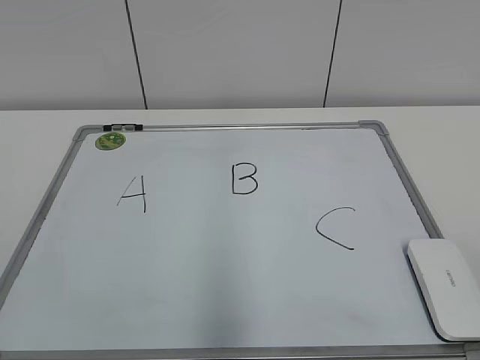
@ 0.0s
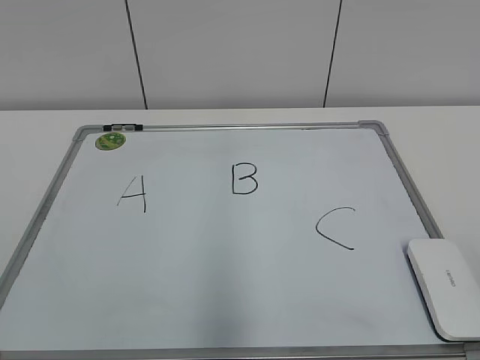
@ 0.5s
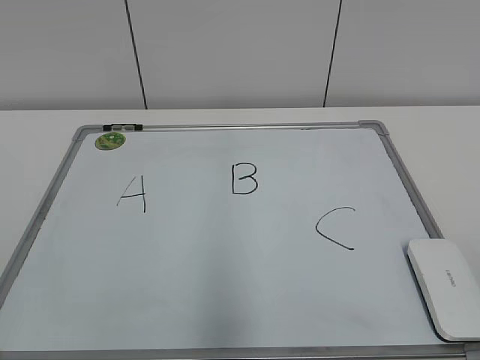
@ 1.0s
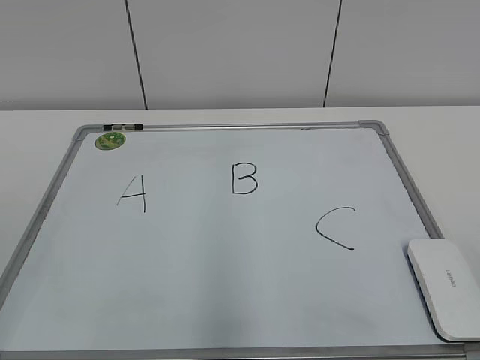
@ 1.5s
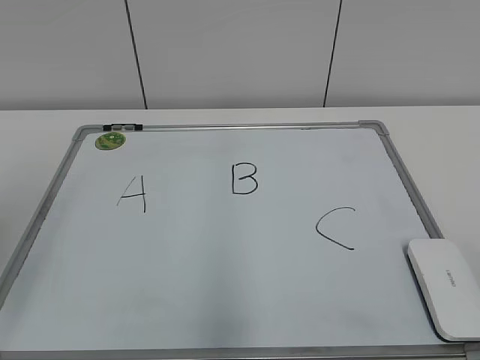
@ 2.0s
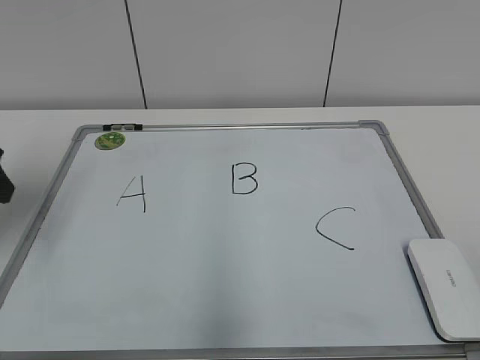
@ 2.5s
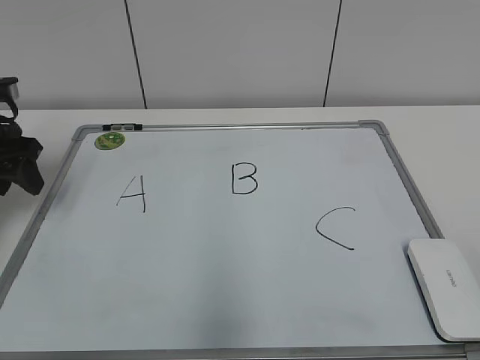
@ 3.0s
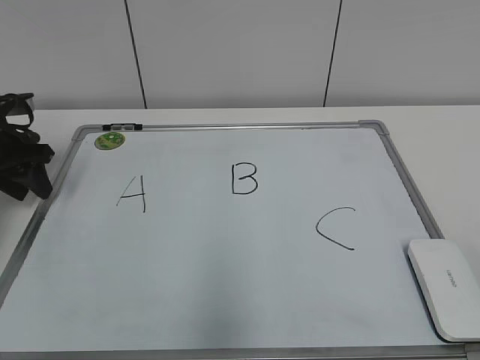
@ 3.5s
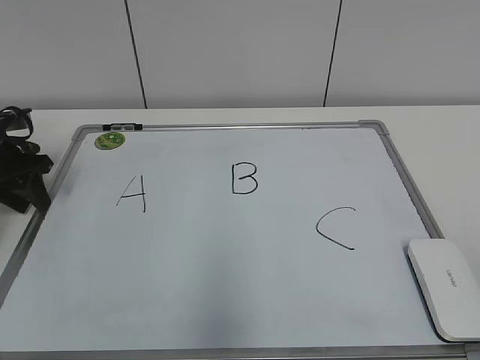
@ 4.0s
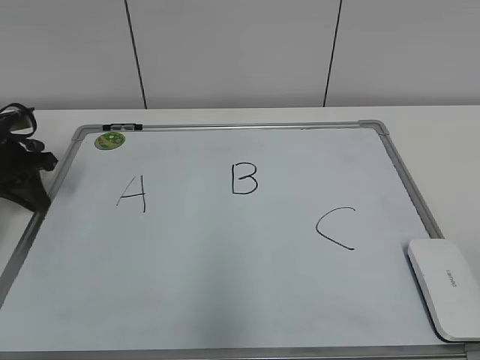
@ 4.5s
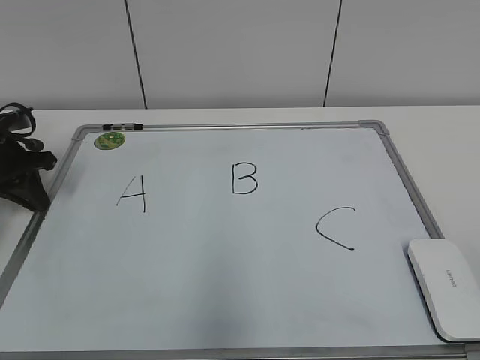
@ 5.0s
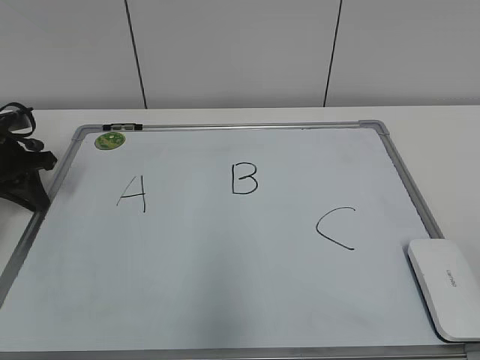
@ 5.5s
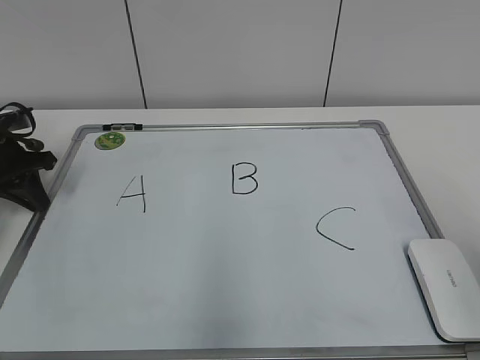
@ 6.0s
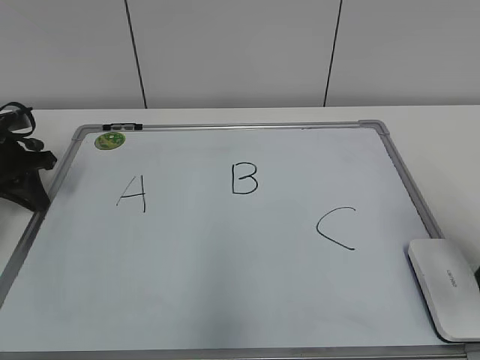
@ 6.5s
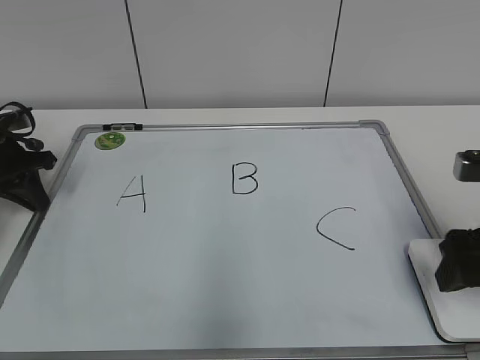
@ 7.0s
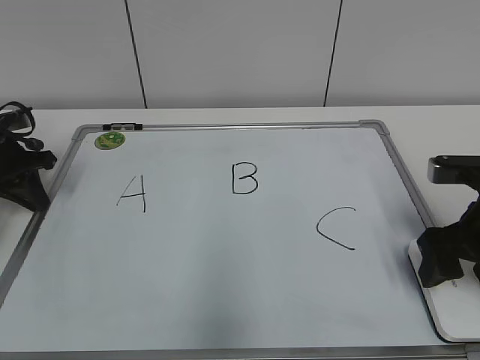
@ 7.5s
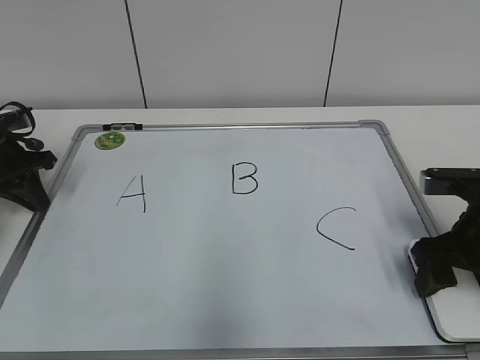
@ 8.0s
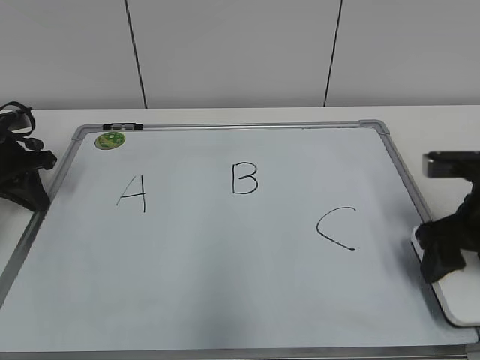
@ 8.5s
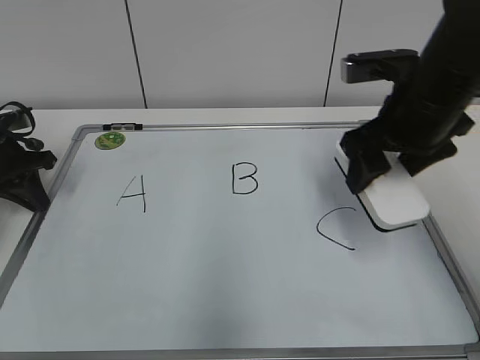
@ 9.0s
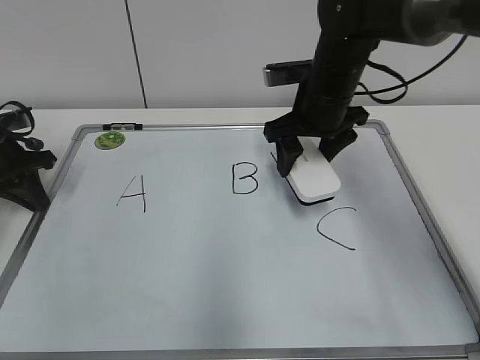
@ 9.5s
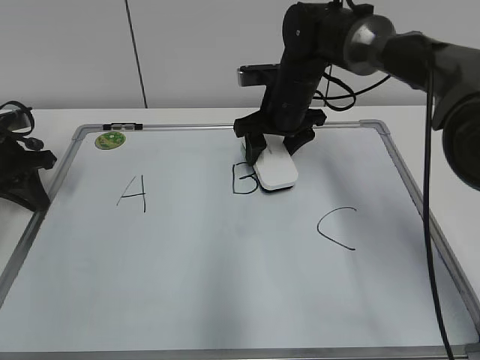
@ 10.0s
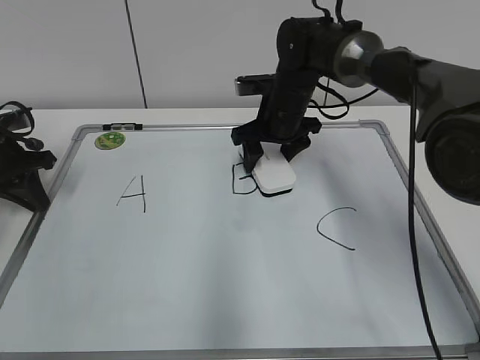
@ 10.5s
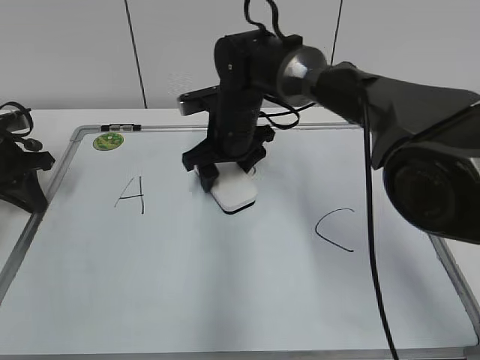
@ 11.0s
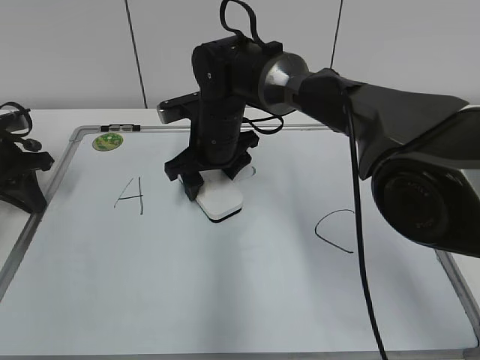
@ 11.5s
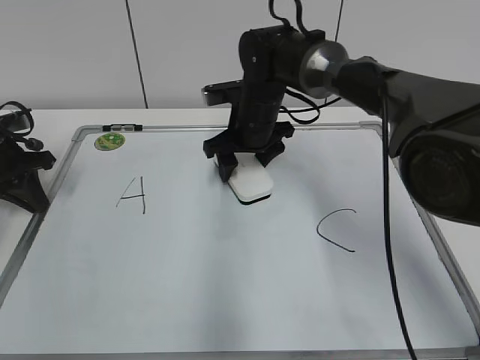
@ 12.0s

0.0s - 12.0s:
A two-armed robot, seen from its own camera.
Task of the whole recording: pick up the eraser on the blackboard and erase the letter "B".
Step, 0.0s - 4.5s: Hold the drawing board steady with your left hand.
Step, 5.5s - 8.5s: Grab the eraser with your right hand.
2.0s - 4.0s: The left gripper is displaced forward and downward by approximately 30 cm, and closes its fingers.
4.0s - 6.0s: The left gripper closes its fingers.
6.0s - 8.0s: The right gripper moves forward and downward, about 25 cm.
8.0s - 10.0s: The right gripper heads forward and to the left, covering approximately 30 cm.

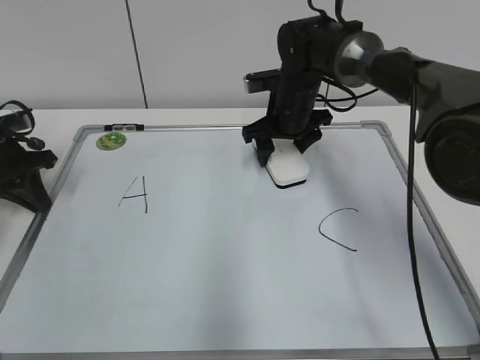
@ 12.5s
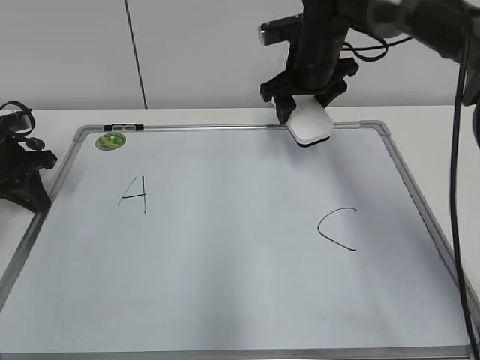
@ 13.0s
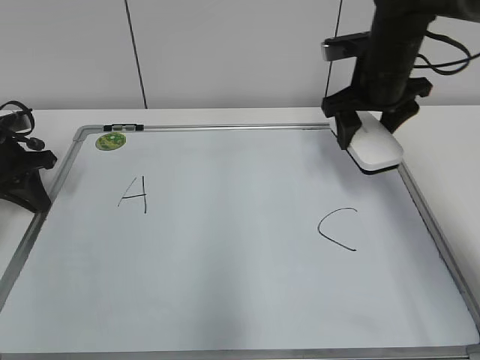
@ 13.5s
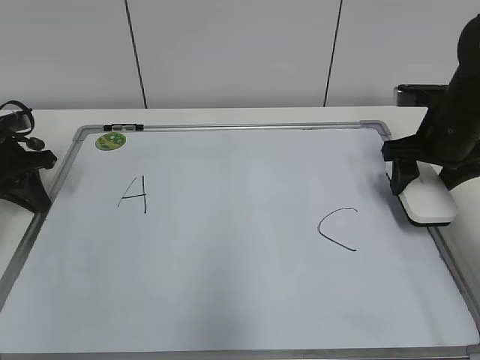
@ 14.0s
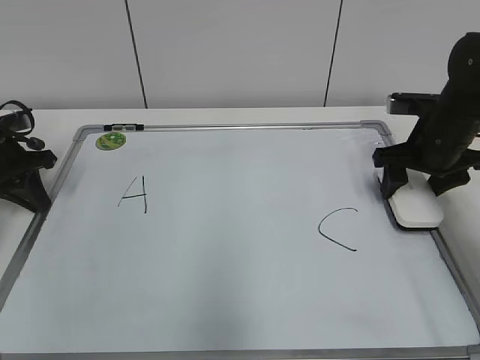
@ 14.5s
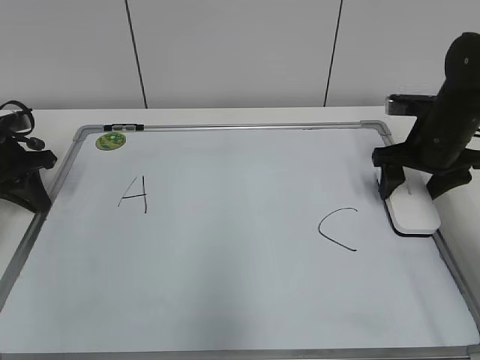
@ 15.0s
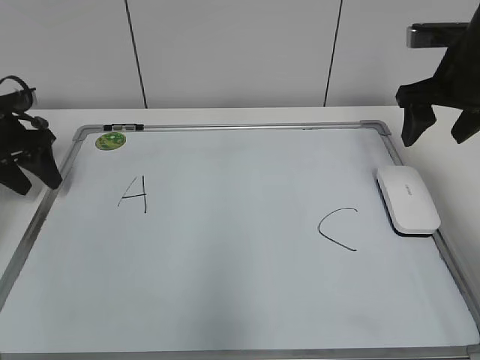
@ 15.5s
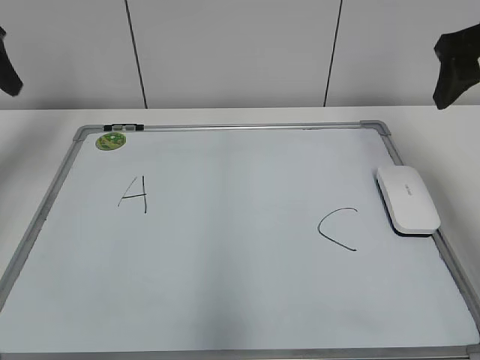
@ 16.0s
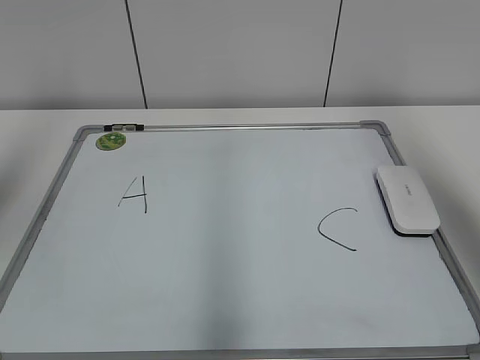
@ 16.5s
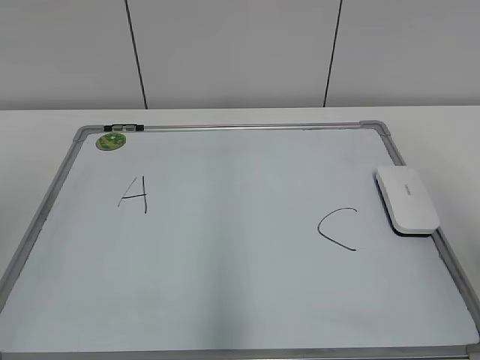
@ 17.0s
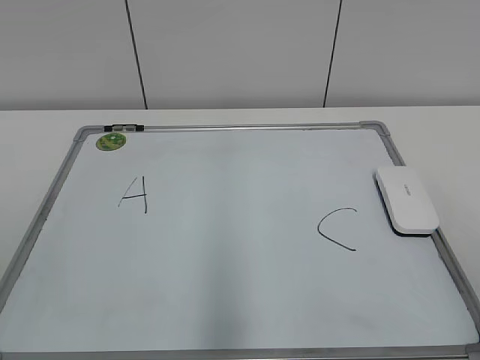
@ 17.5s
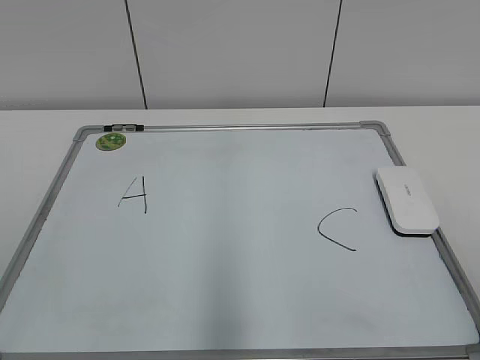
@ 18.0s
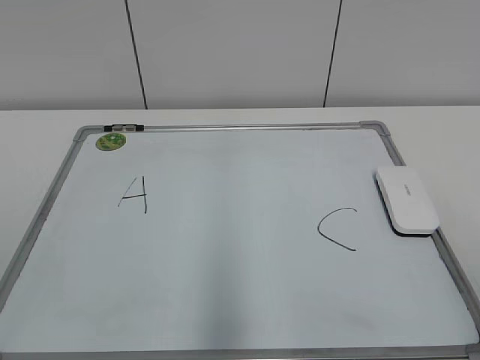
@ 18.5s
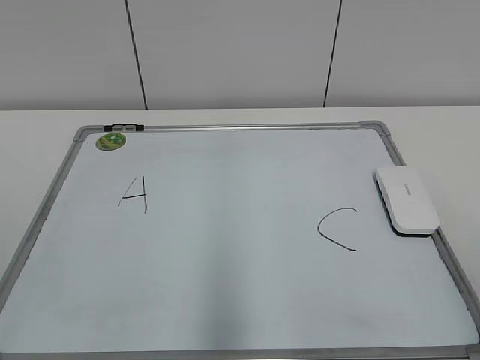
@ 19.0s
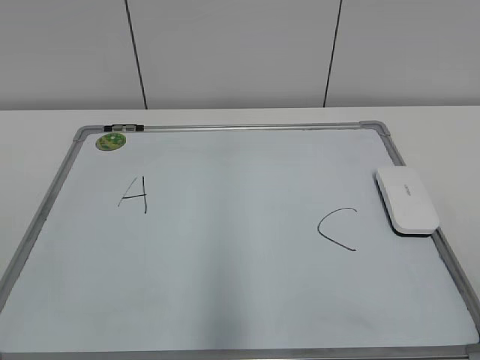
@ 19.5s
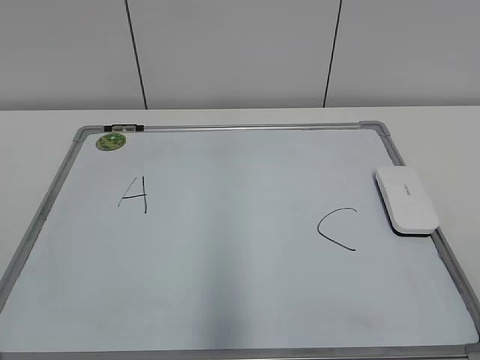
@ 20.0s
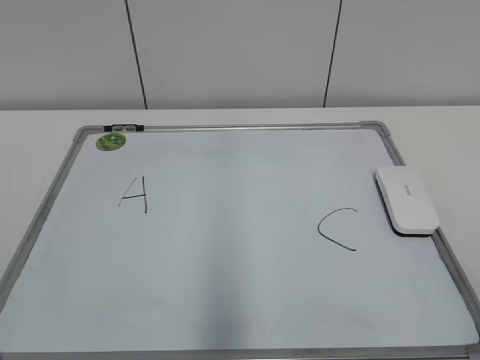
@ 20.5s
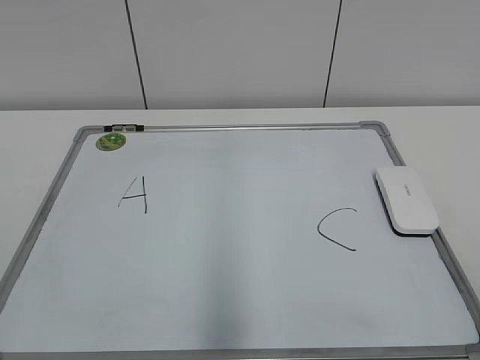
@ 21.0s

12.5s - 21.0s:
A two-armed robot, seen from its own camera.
Task of the whole recording: pick up the eraser on the blackboard and erase the letter "B".
Step, 13.0s - 15.0s: Put down the eraser with your right hand.
12.5s - 14.5s: The right gripper shifts roughly 20 cm to the right and backward.
14.5s - 16.5s: Both grippers move upward and backward, approximately 30 cm. The left gripper opens up.
16.5s - 19.0s: Both grippers travel together backward and downward, about 25 cm.

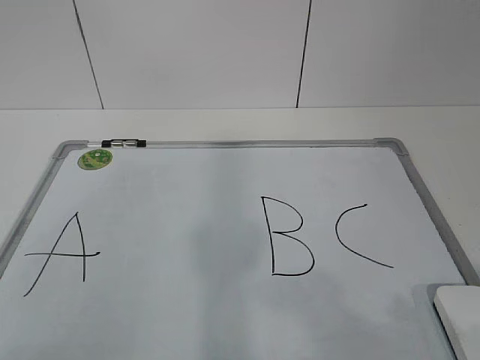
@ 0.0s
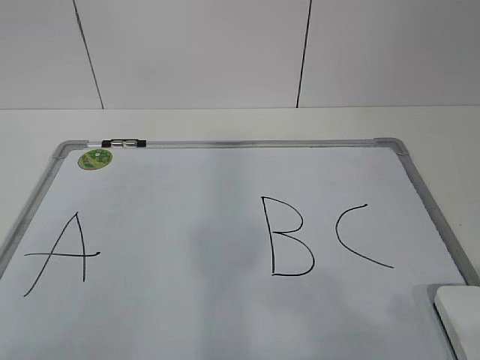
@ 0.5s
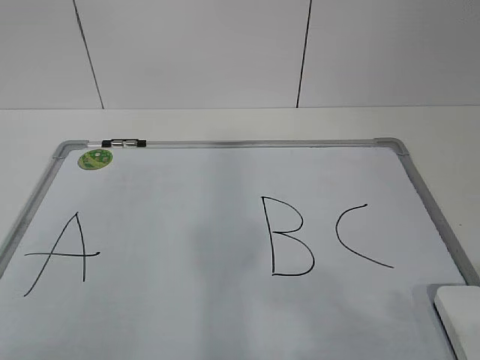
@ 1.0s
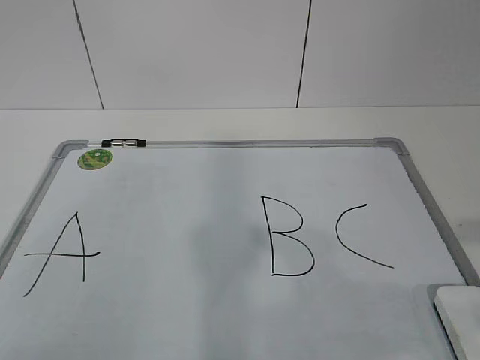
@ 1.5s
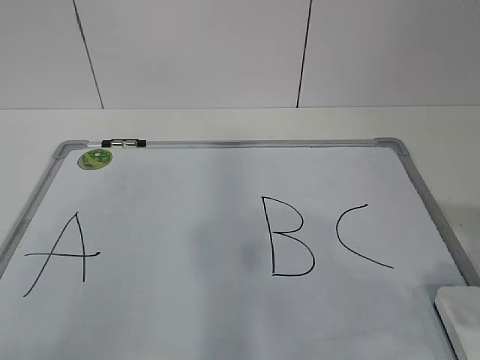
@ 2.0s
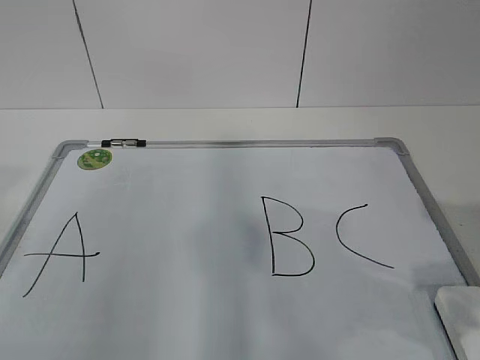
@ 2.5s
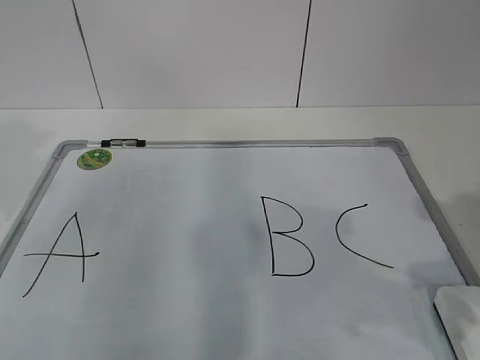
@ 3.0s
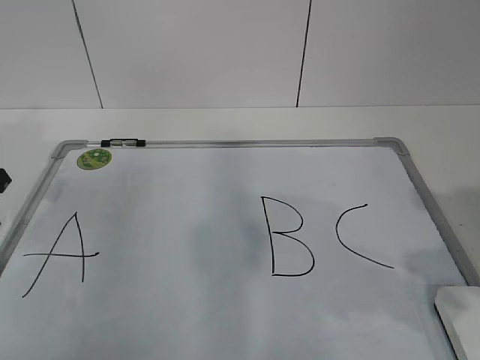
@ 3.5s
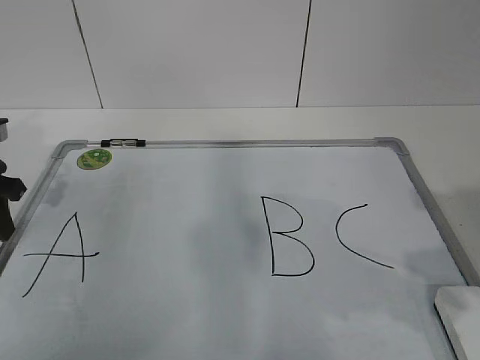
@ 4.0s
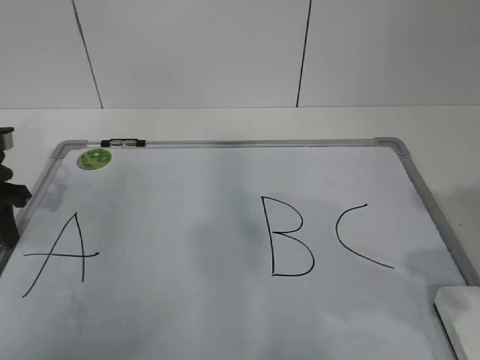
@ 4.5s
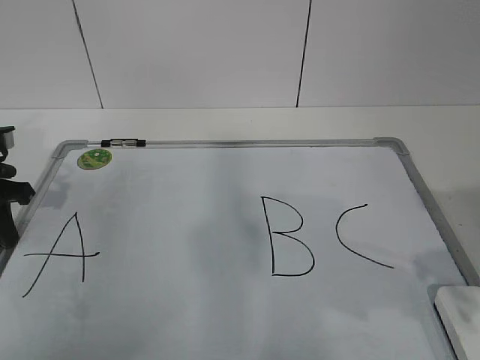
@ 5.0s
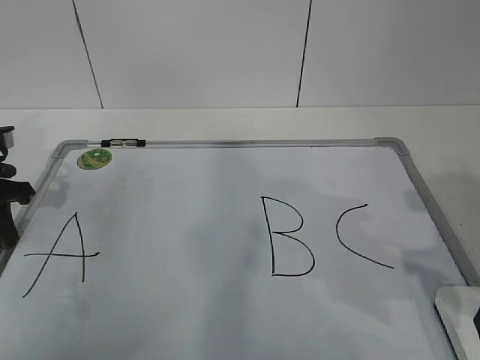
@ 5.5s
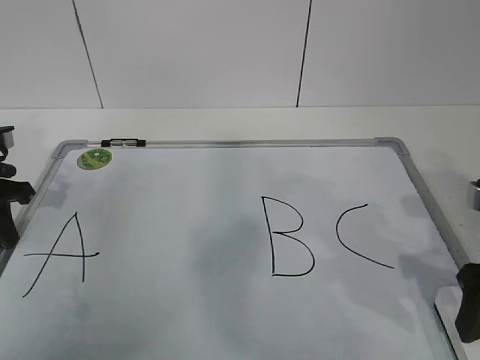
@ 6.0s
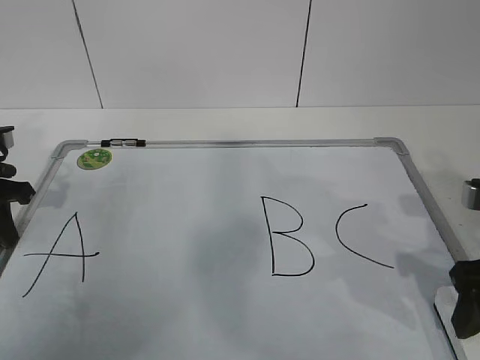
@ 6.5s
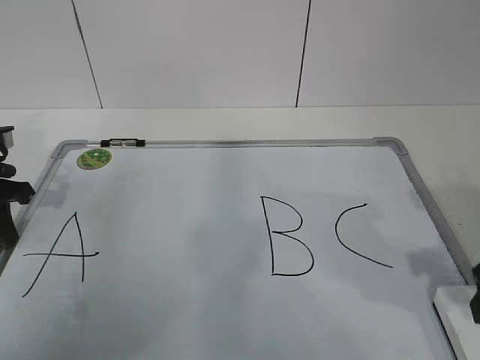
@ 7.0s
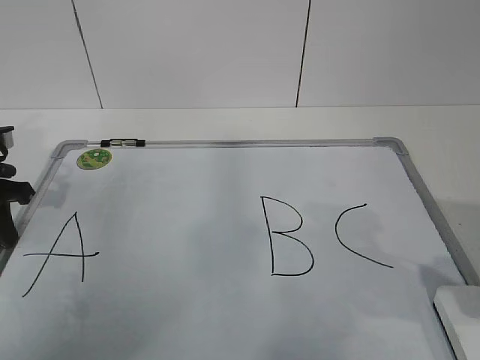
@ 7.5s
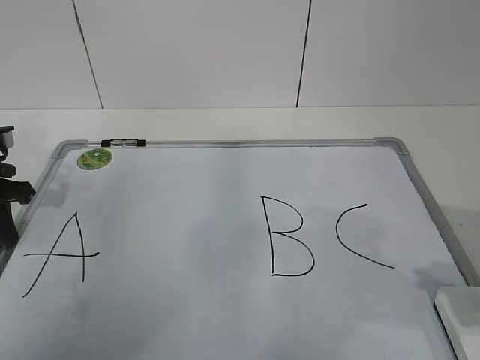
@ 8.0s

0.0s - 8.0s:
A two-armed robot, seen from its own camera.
Task of the whole recording: pick up the eraser on the blackboard and erase the letter "B".
2.0s - 4.0s: The left gripper travels forward by roughly 30 cm.
4.0s - 6.0s: The right gripper moves forward and downward, approximately 10 cm, and opens up. Meanwhile the left gripper closes.
6.0s - 8.0s: The right gripper goes about 5 cm backward, and closes up.
